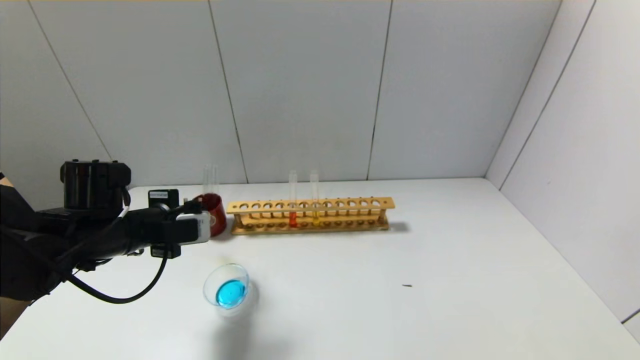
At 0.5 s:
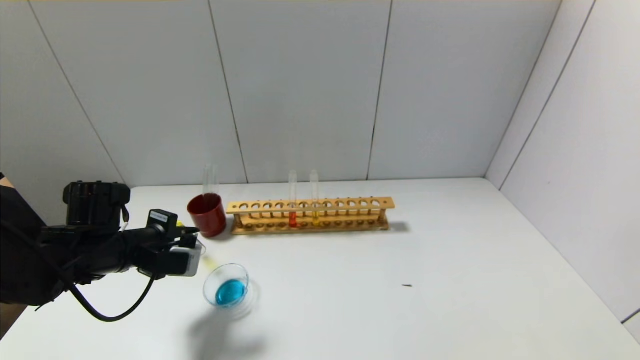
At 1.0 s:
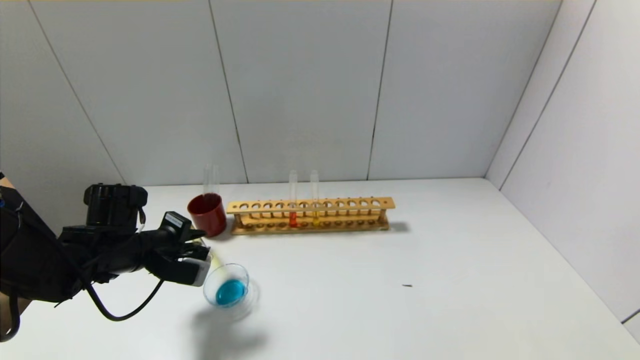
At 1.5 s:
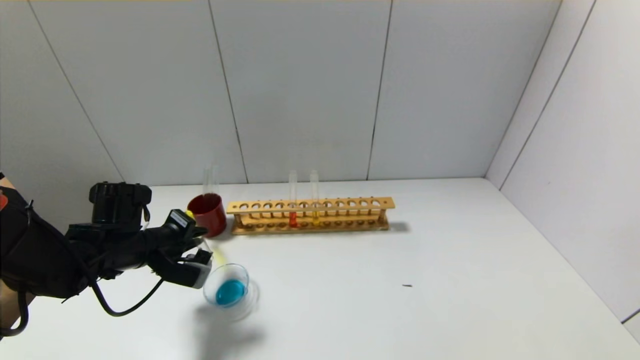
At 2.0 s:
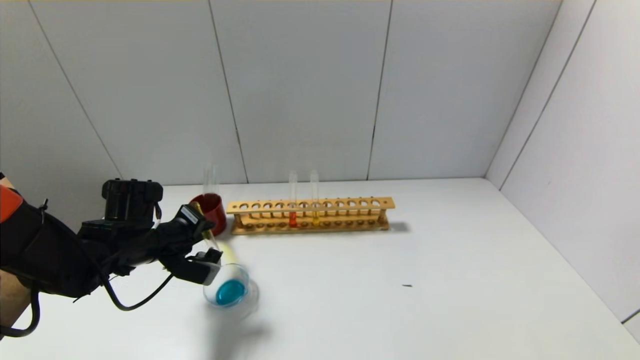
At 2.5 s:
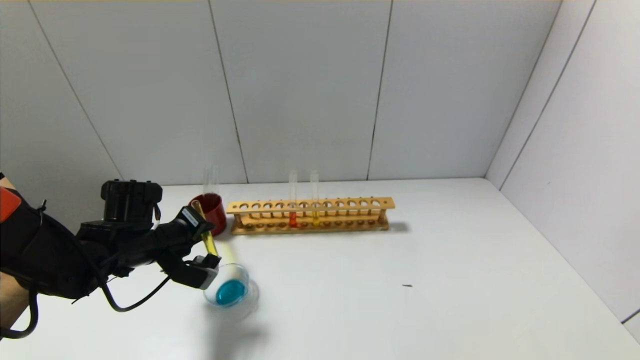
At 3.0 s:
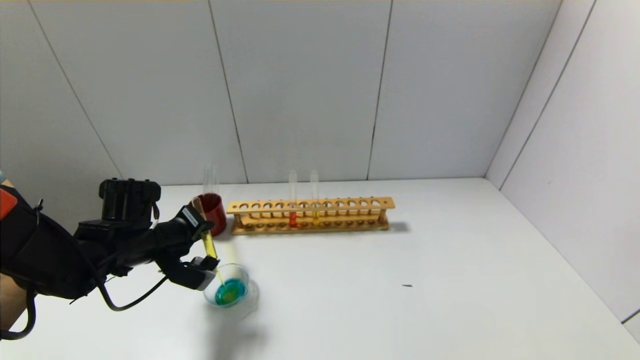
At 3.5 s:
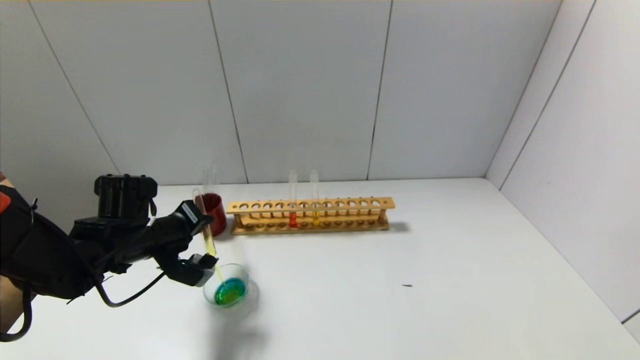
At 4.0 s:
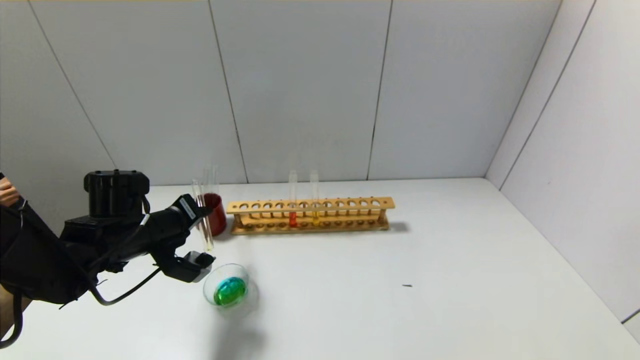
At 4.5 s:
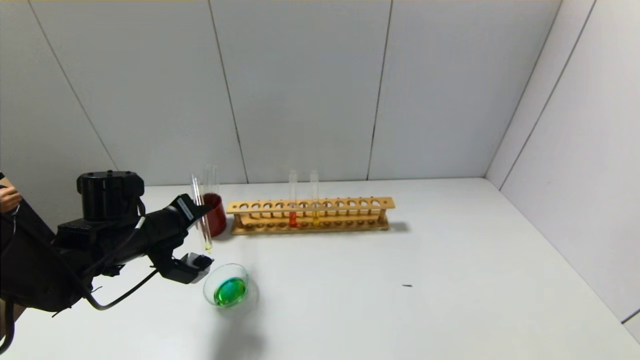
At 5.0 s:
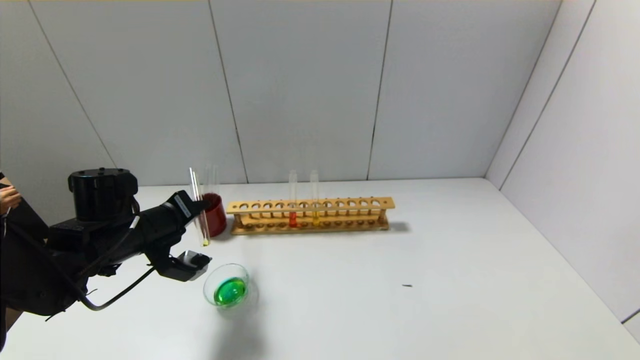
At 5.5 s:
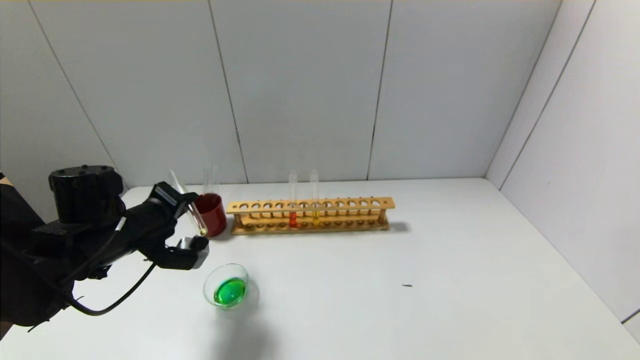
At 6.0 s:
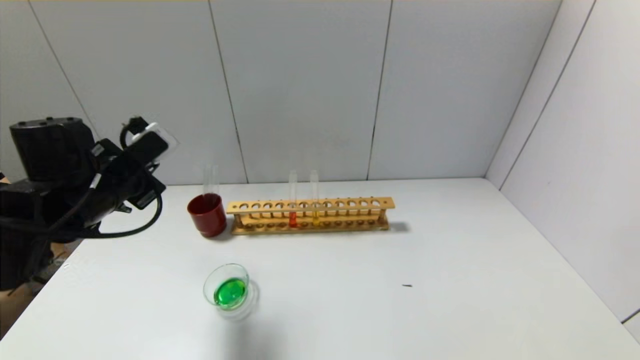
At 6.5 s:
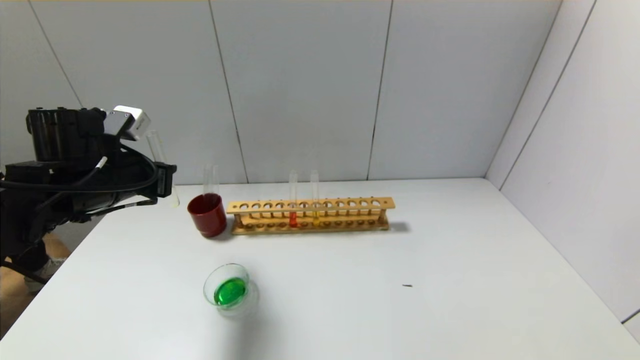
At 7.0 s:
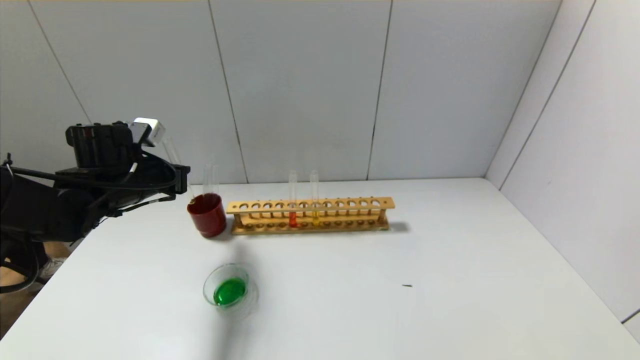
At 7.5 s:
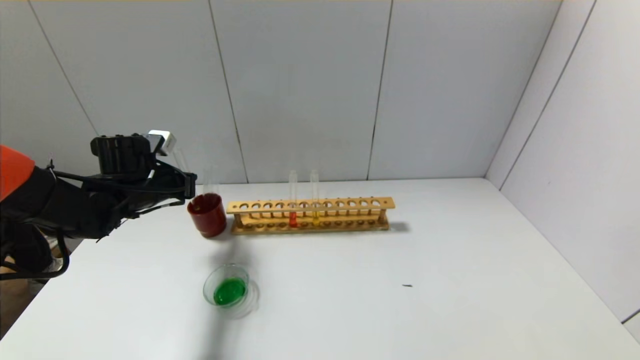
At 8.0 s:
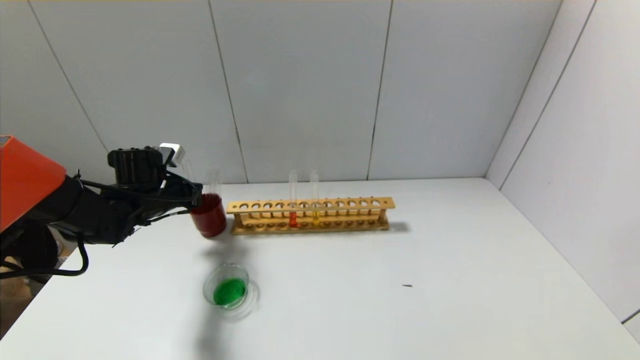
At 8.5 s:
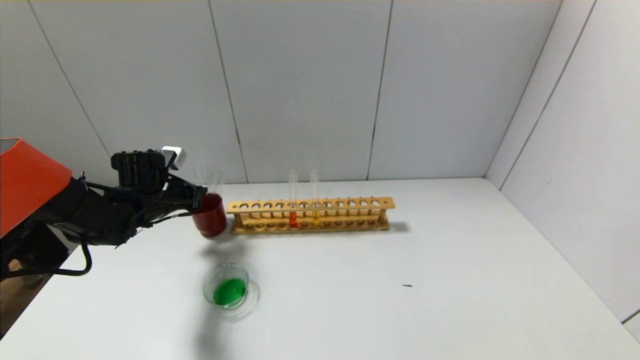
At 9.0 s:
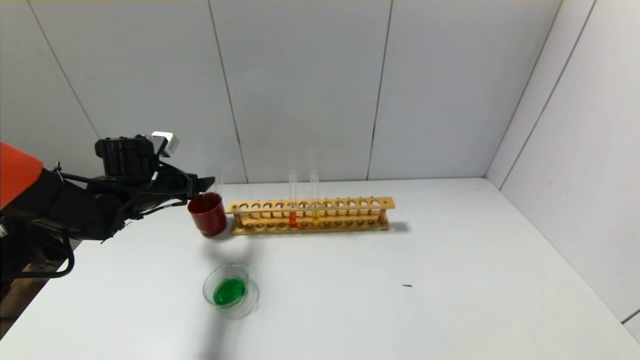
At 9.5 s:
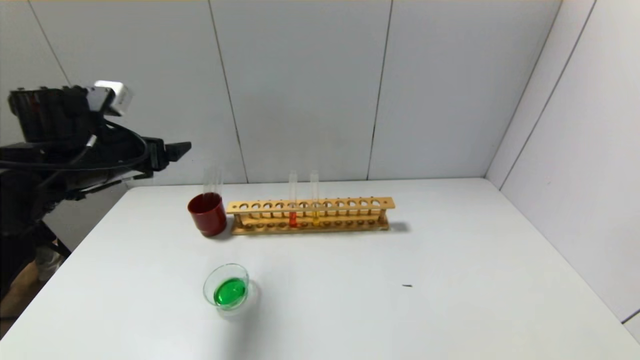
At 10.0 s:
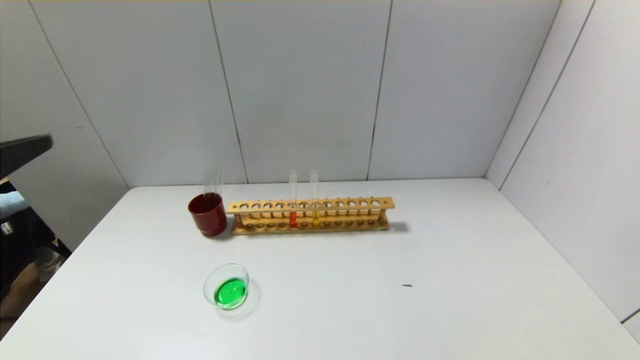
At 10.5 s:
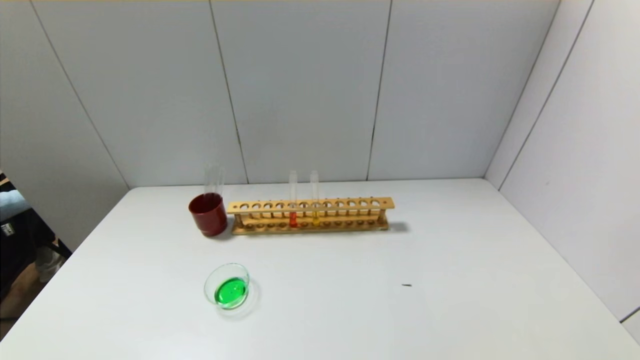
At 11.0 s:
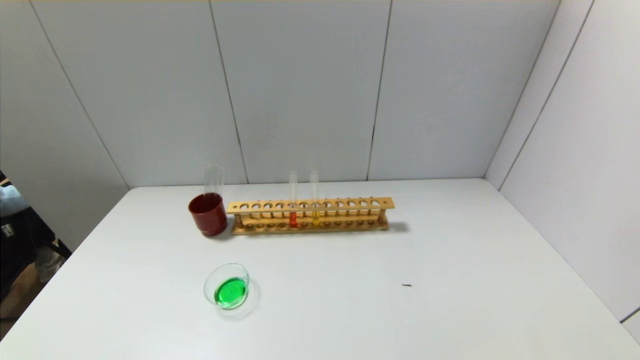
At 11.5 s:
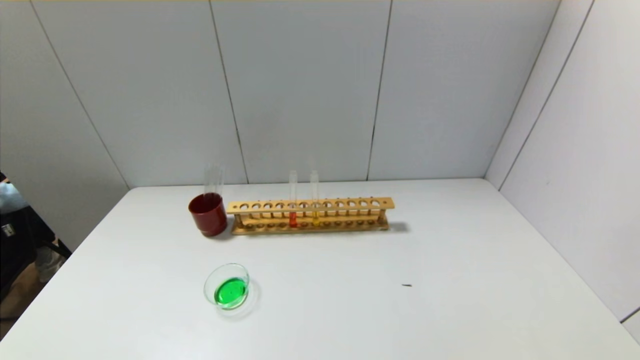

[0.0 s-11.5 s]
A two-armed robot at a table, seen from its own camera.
Step, 0.0 to 5.5 s: Pour the yellow reagent into the graduated cylinder with the left gripper.
Step, 6.0 to 8.5 s: Place the test tube into the brown cup with the left gripper.
0.0 to 2.0 s: The left gripper ends up about 5 cm from where it was.
2.0 to 4.0 s: The grippers move only a little.
4.0 to 6.0 s: The left gripper travels upward by roughly 10 cm.
6.0 to 7.5 s: The left gripper heads forward and downward, covering some 10 cm.
7.5 to 9.5 s: The left gripper is displaced upward and backward by roughly 10 cm, and opens its fingers.
9.5 to 11.5 s: The left gripper travels backward and downward by some 35 cm.
